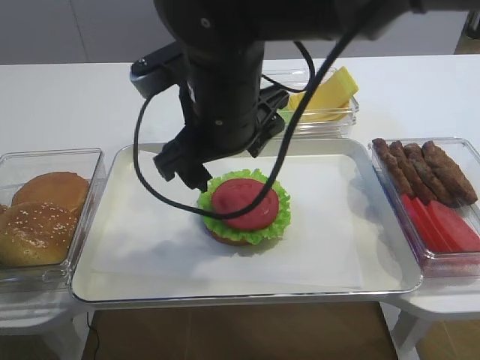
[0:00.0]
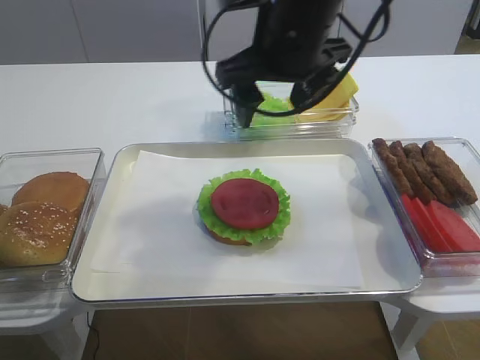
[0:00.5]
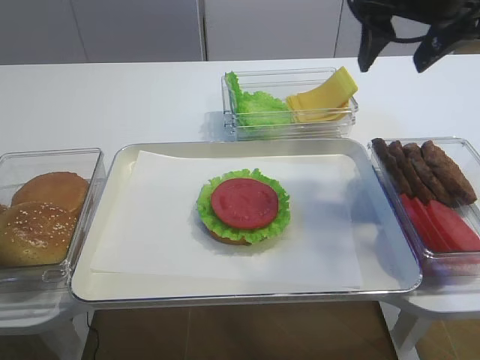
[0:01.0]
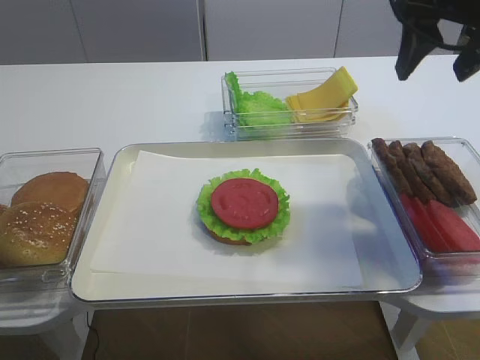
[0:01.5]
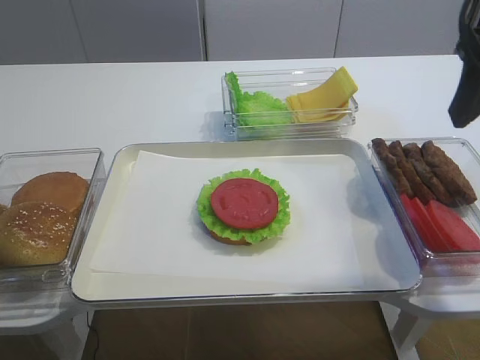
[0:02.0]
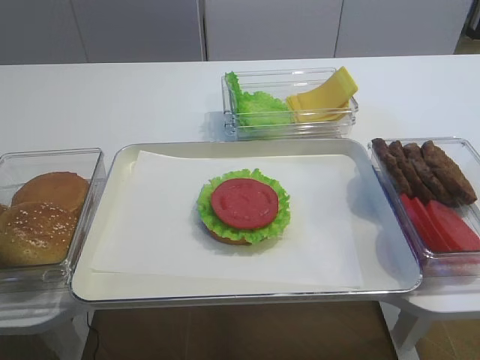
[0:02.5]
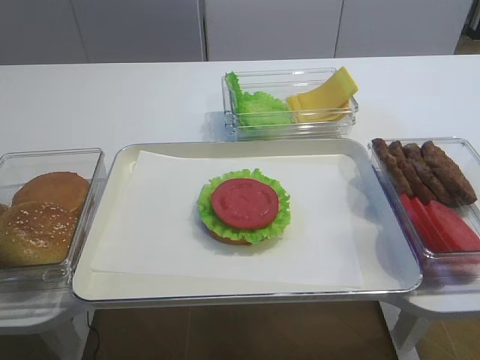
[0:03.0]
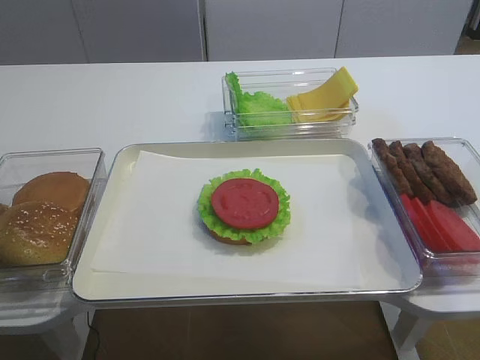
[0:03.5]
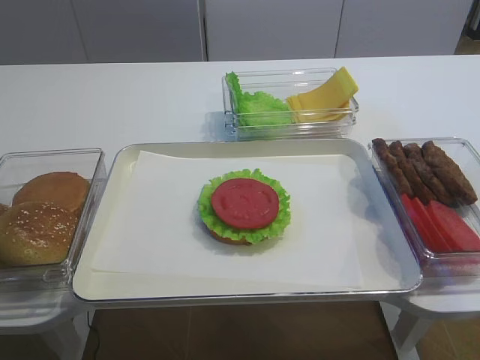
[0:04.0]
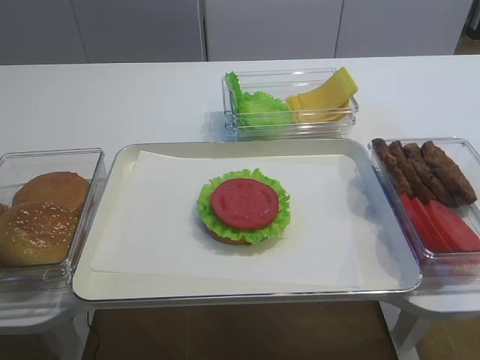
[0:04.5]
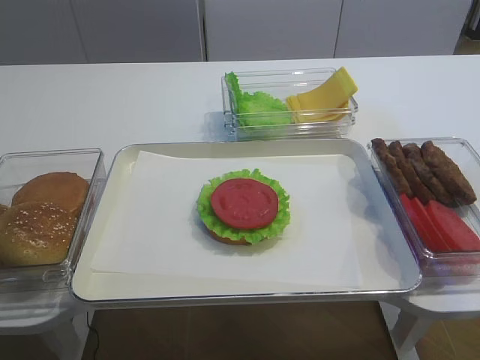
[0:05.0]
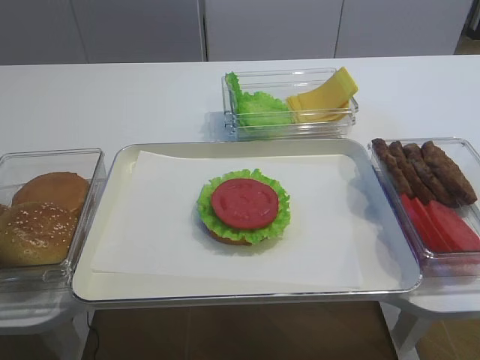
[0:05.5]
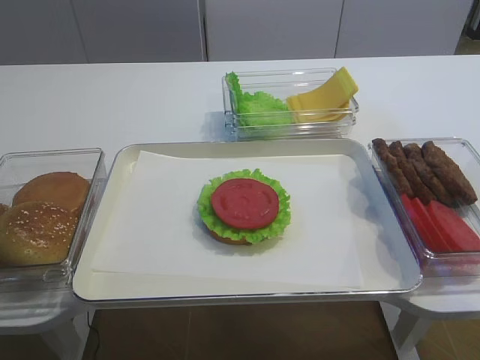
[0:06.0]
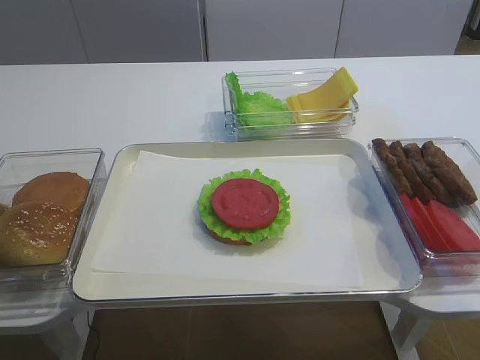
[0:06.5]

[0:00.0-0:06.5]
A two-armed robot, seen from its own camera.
0:00.0 to 0:02.0: The right gripper moves to the right, approximately 25 cm.
0:02.0 to 0:04.5: The right gripper travels backward by roughly 25 cm.

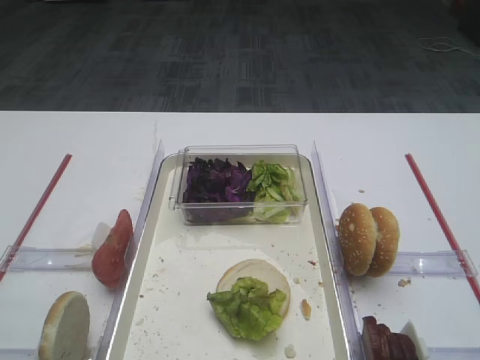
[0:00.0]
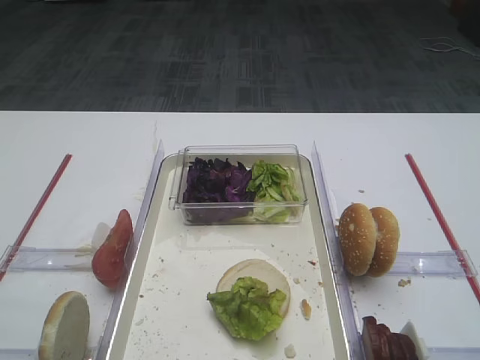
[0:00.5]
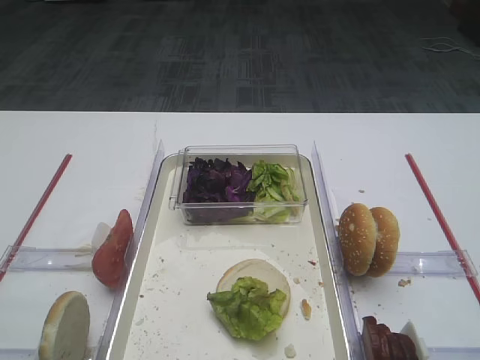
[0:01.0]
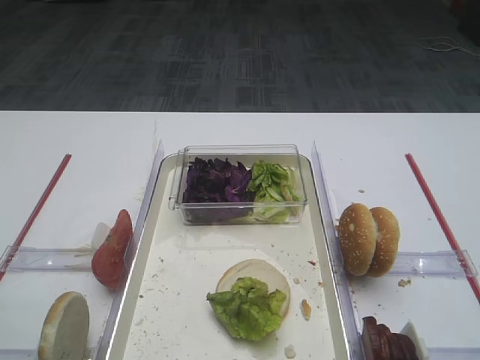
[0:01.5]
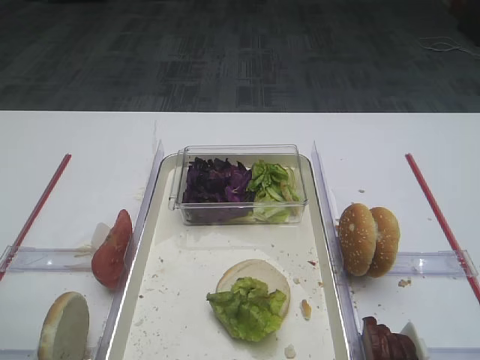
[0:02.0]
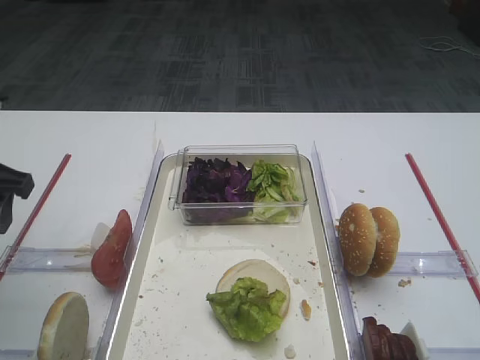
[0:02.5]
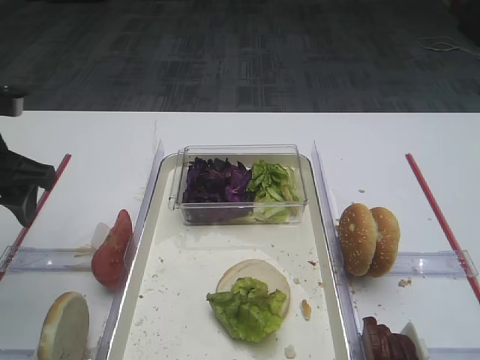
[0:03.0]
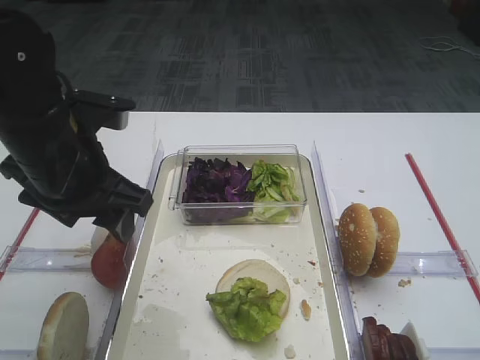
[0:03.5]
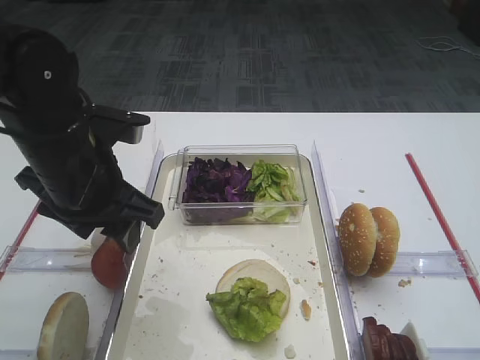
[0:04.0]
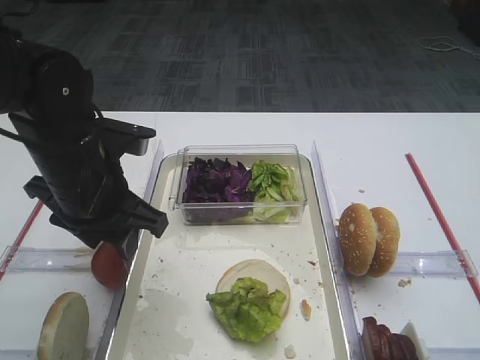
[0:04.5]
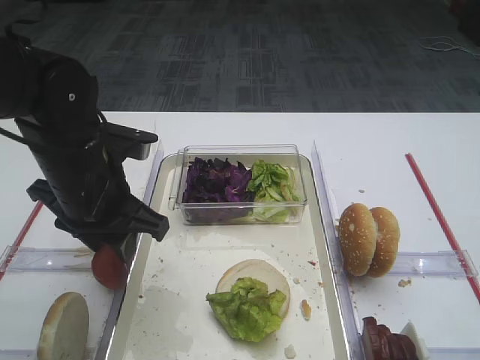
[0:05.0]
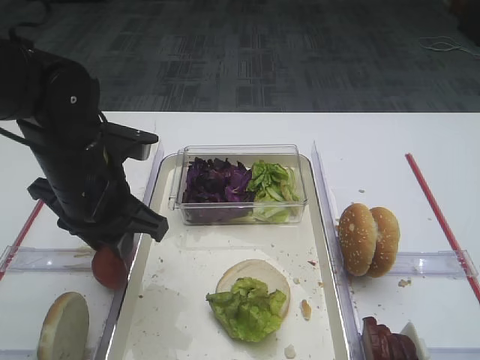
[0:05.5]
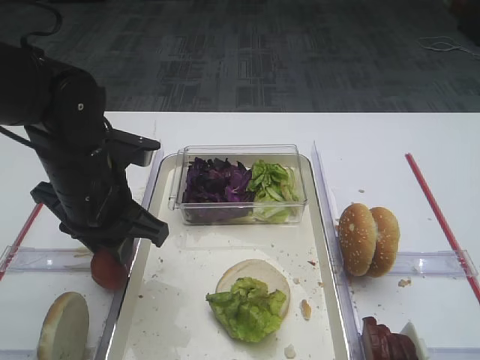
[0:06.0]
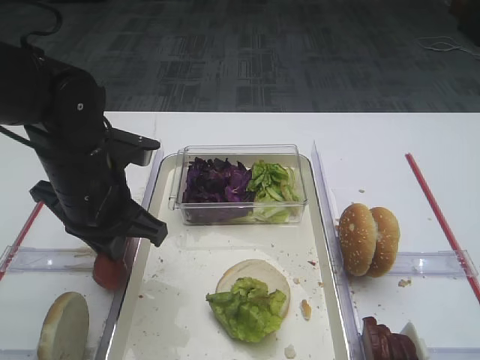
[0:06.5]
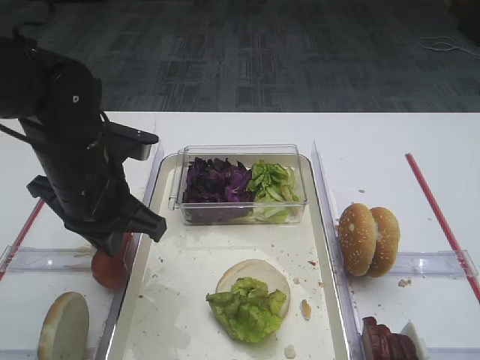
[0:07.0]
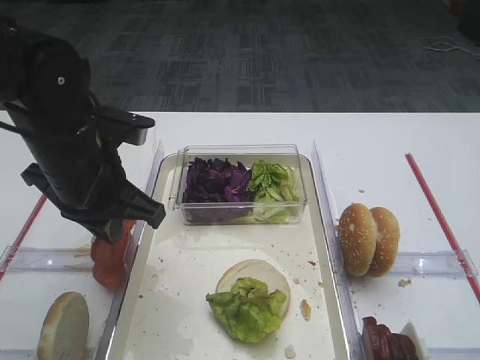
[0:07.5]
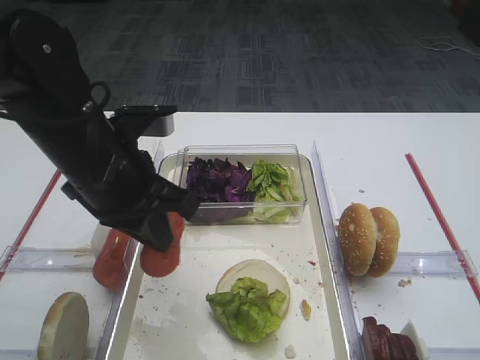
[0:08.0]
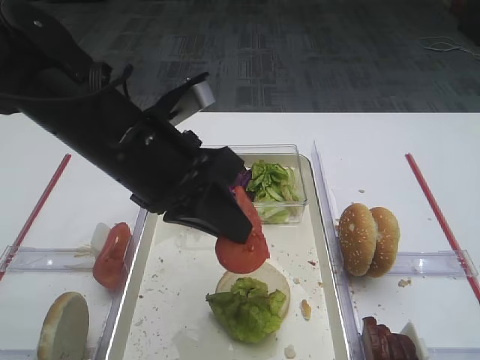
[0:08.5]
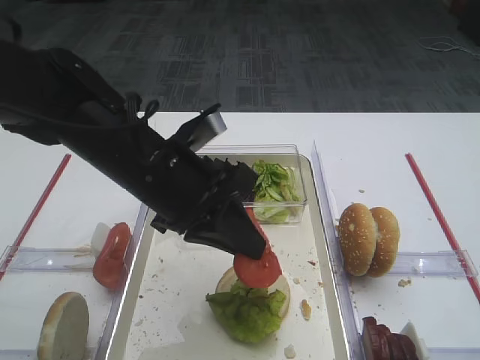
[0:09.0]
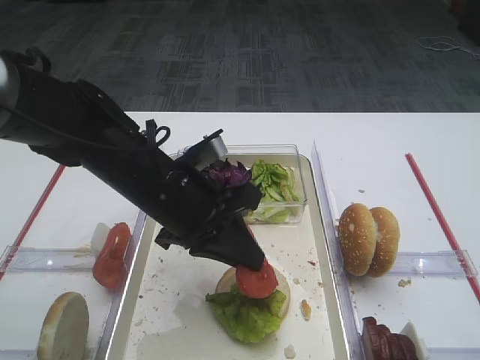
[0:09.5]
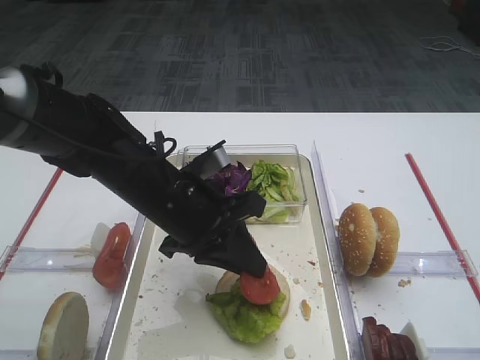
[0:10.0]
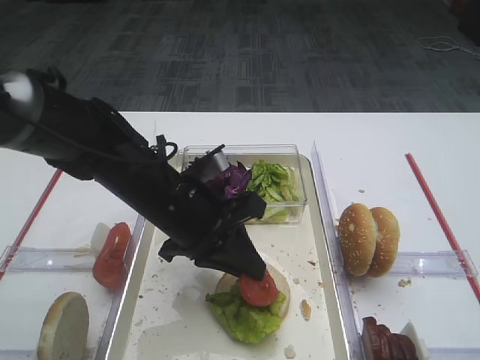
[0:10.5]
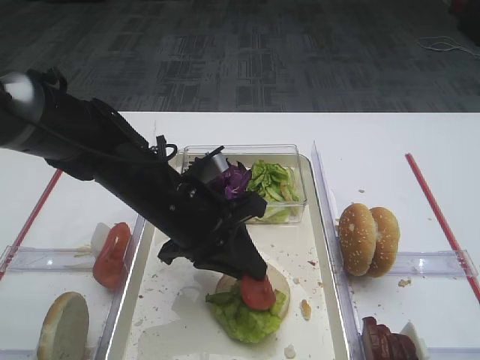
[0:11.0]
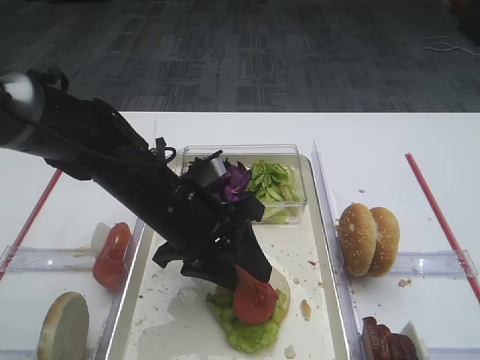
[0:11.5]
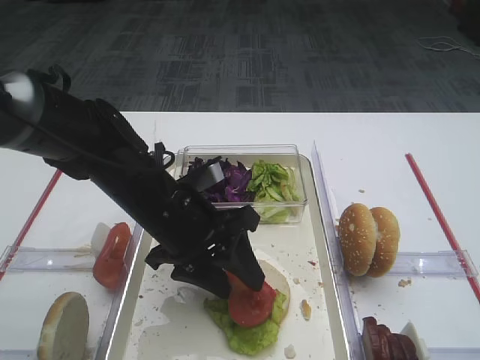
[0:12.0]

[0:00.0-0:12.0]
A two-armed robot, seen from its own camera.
Step, 0:00.0 to 0:07.5: Pick up the tomato slice with the left gripper.
0:02.0 to 0:04.0: The left gripper goes some 20 cm forward and to the right.
0:04.0 to 0:06.0: The left gripper closes its fingers.
0:06.0 to 0:08.0: The left gripper moves some 5 cm, and closes its fingers.
0:08.0 to 0:10.0: The left gripper travels downward and to the right by about 10 cm.
0:10.0 to 0:12.0: The left gripper opens its fingers.

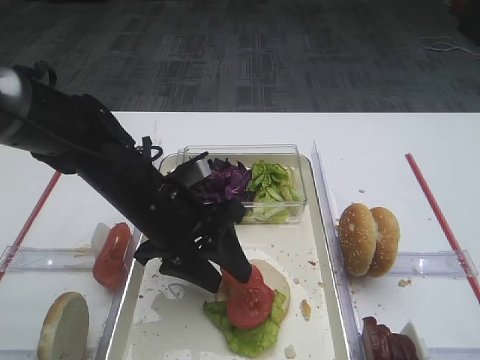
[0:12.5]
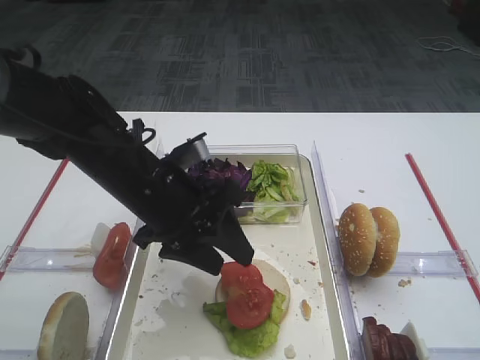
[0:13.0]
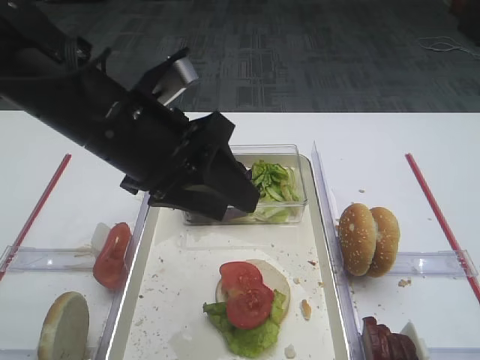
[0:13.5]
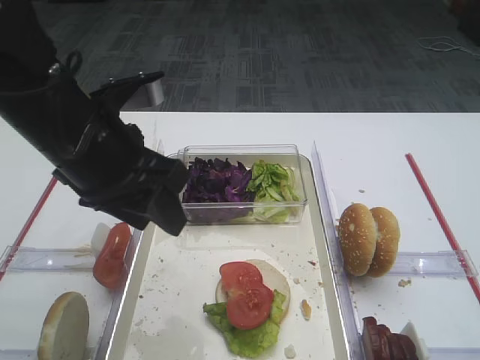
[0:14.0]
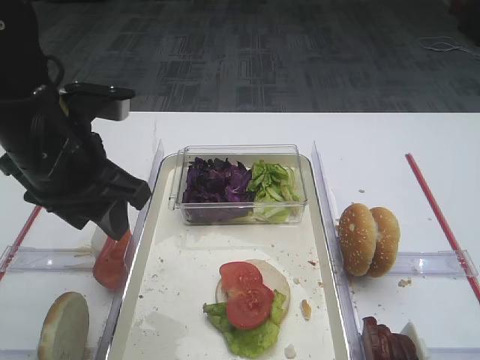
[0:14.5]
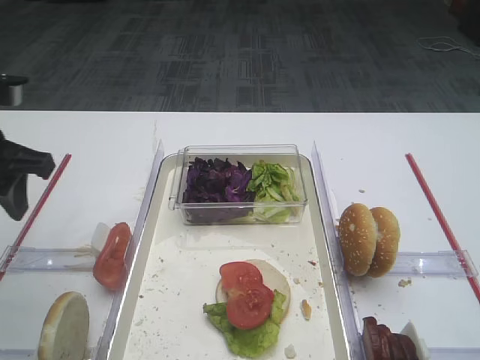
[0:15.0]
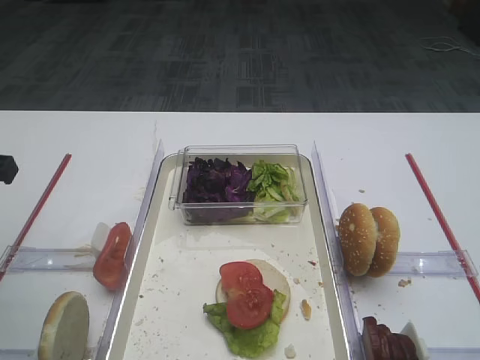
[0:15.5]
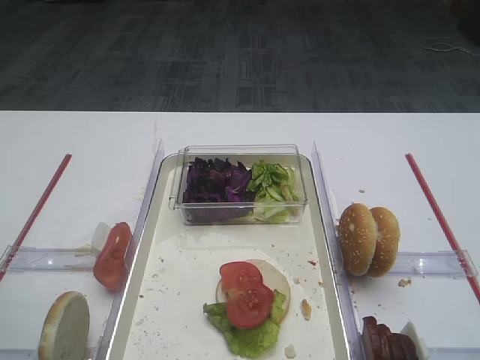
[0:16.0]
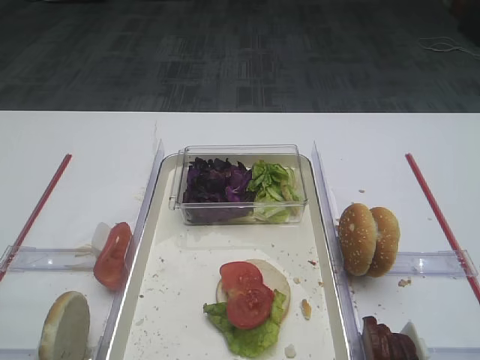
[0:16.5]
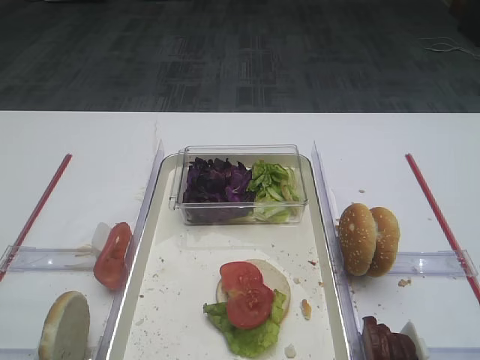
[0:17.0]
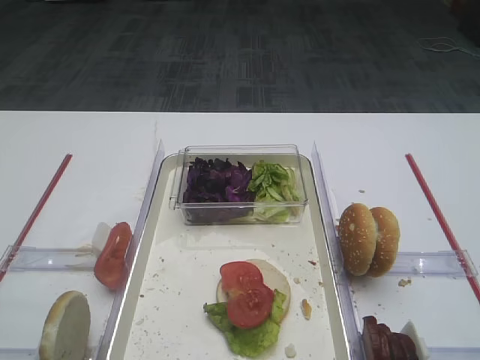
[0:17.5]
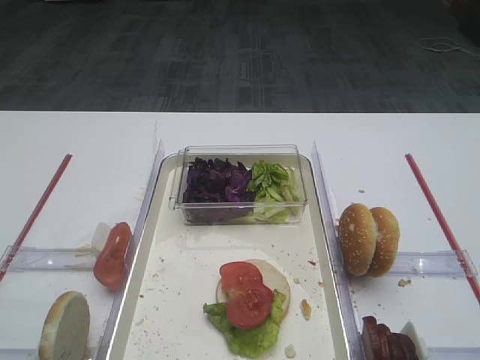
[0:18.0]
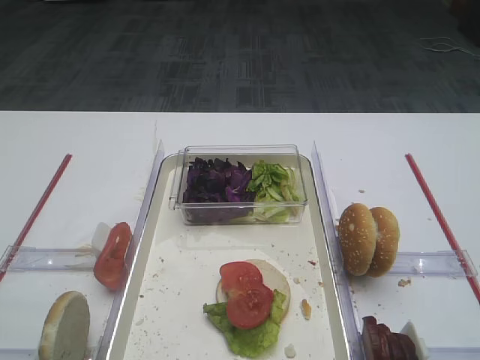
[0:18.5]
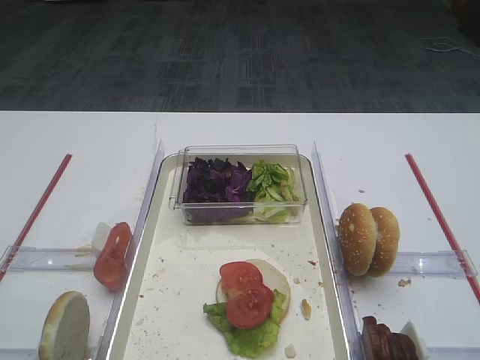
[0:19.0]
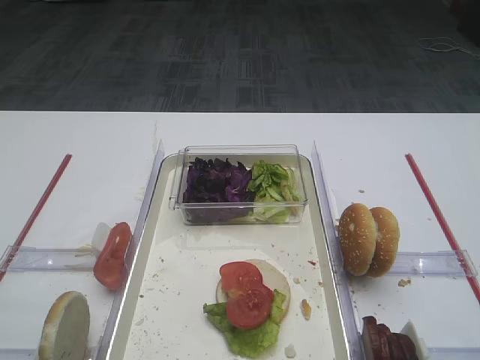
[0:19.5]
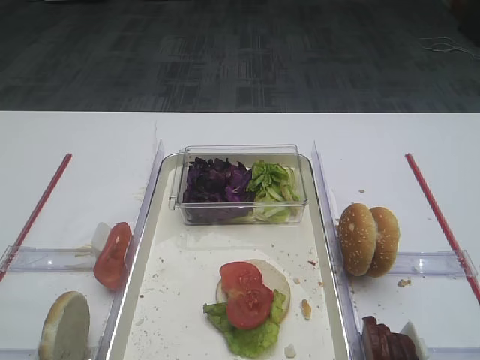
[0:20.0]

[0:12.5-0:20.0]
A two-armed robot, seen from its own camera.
0:12.5 to 0:14.5: The left gripper is displaced upward and to the left by approximately 10 cm.
0:14.5 to 0:16.5: The left gripper shifts about 20 cm backward and to the left.
0:18.0 to 0:20.0: Both grippers stay about where they are.
